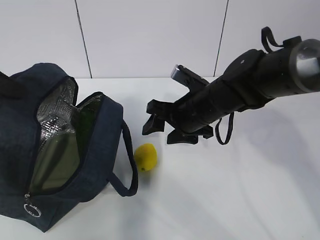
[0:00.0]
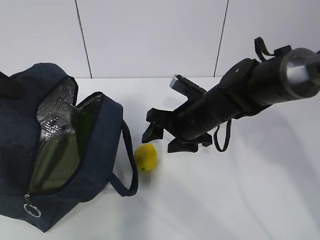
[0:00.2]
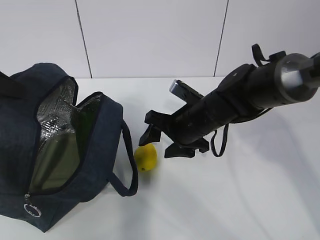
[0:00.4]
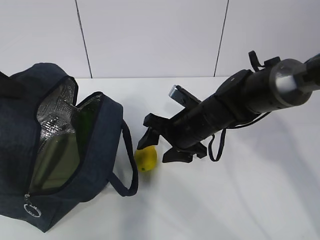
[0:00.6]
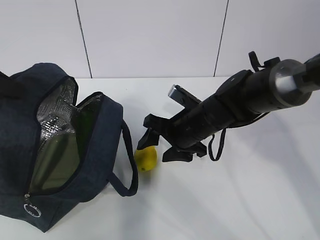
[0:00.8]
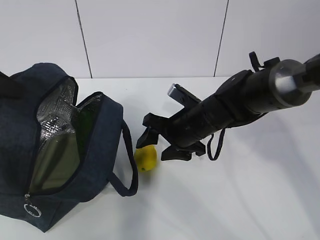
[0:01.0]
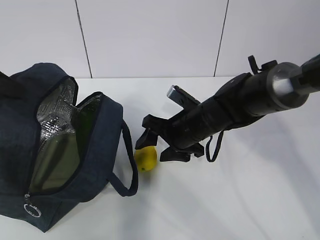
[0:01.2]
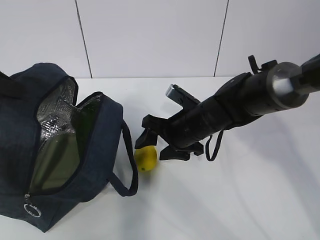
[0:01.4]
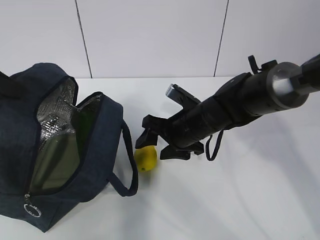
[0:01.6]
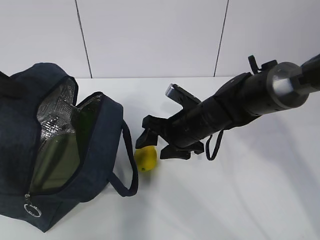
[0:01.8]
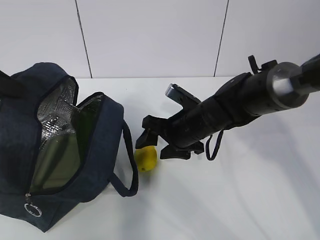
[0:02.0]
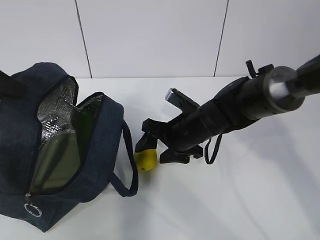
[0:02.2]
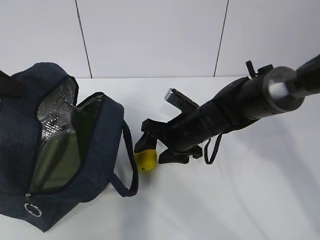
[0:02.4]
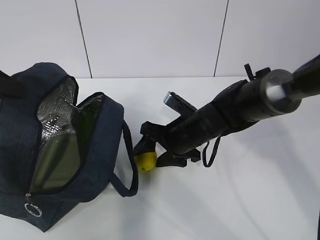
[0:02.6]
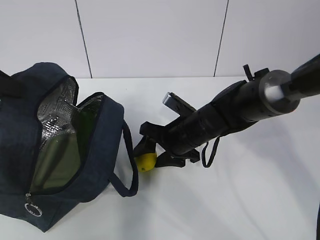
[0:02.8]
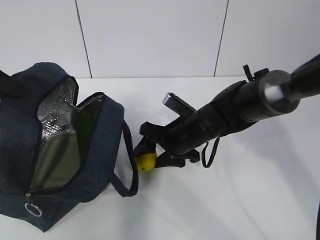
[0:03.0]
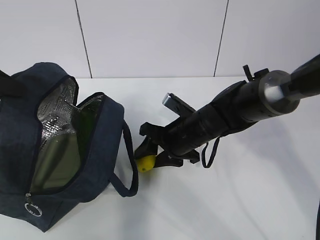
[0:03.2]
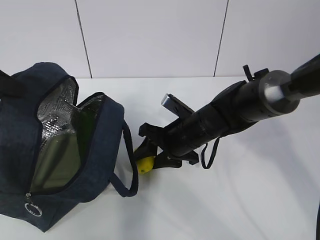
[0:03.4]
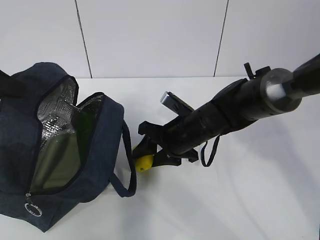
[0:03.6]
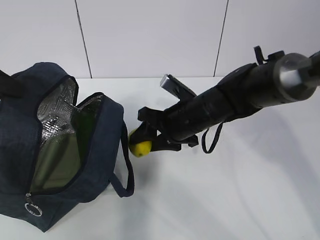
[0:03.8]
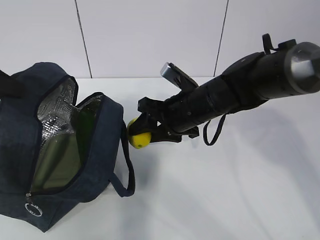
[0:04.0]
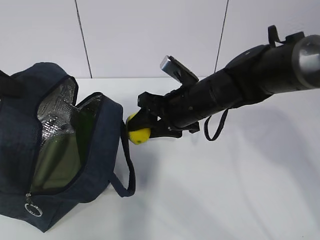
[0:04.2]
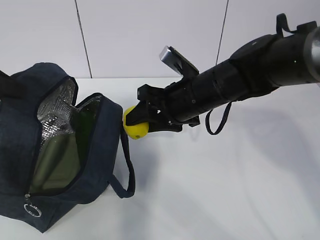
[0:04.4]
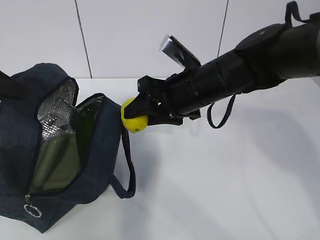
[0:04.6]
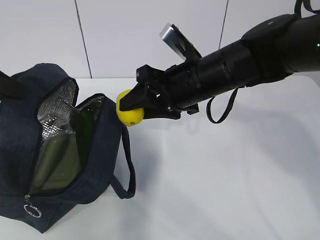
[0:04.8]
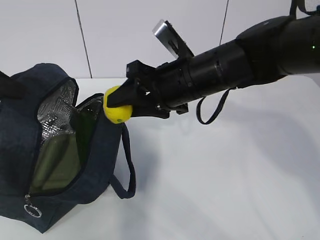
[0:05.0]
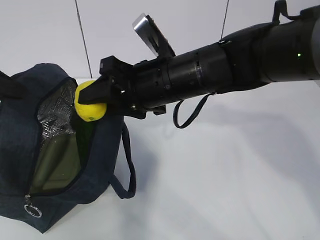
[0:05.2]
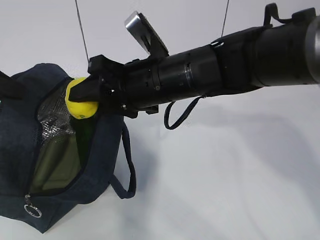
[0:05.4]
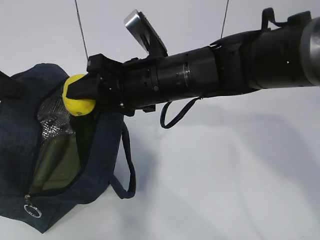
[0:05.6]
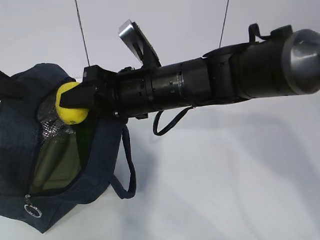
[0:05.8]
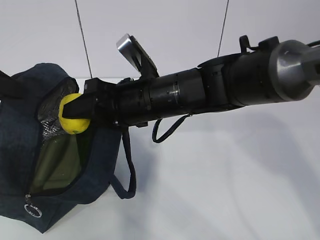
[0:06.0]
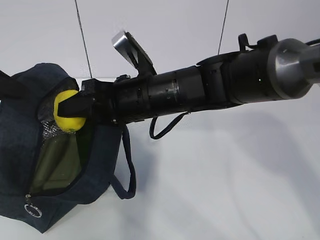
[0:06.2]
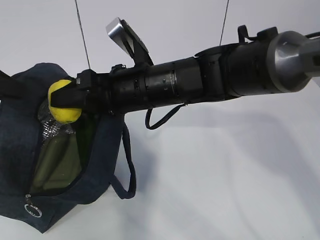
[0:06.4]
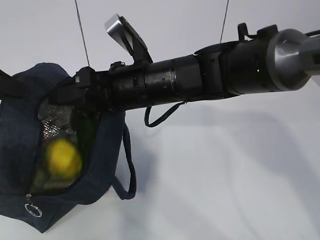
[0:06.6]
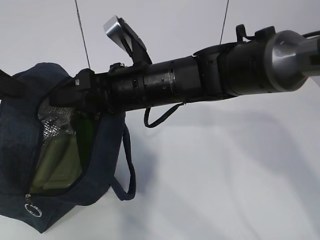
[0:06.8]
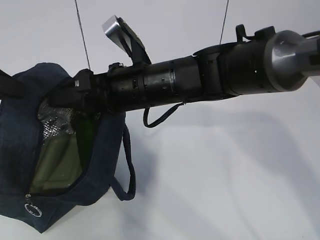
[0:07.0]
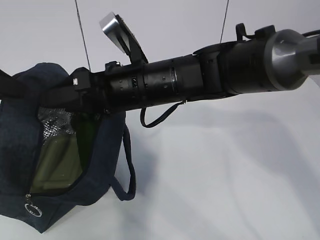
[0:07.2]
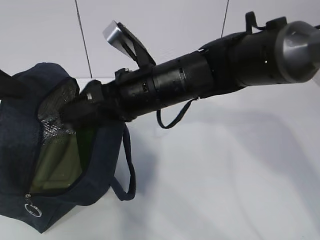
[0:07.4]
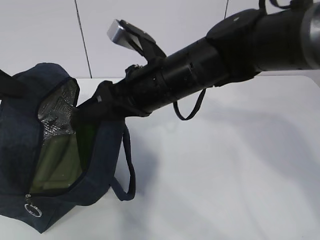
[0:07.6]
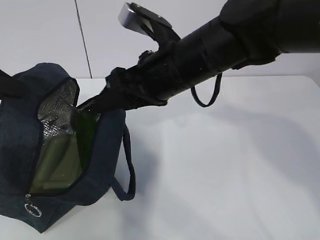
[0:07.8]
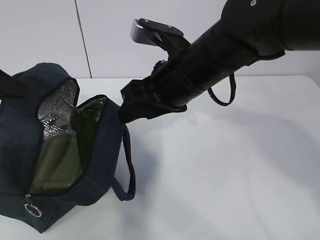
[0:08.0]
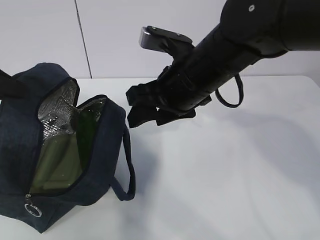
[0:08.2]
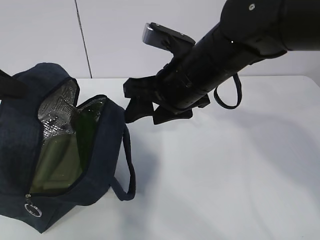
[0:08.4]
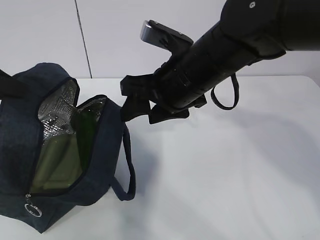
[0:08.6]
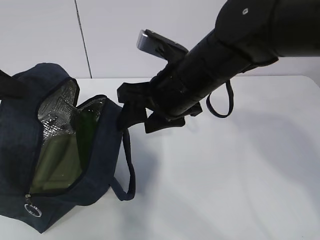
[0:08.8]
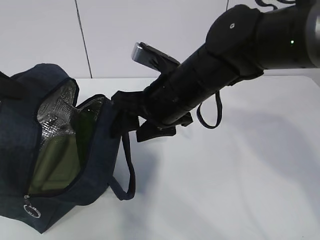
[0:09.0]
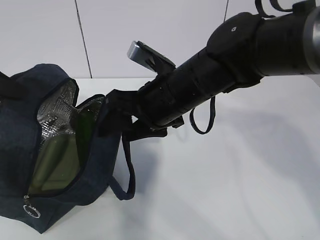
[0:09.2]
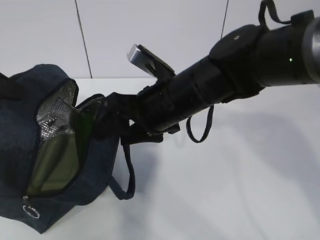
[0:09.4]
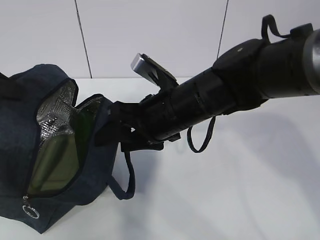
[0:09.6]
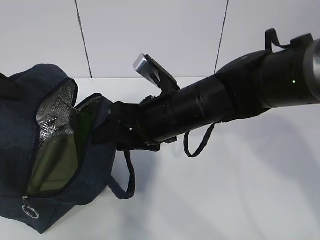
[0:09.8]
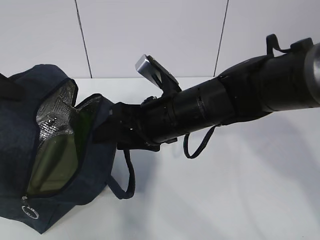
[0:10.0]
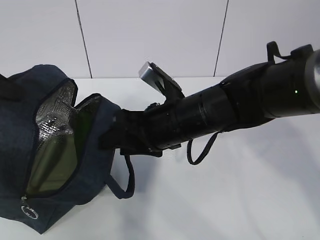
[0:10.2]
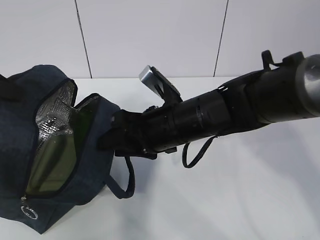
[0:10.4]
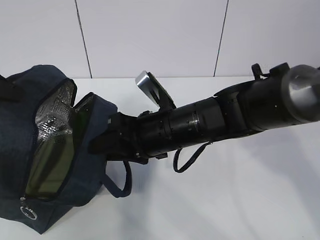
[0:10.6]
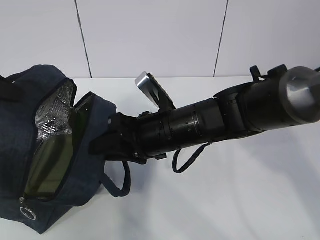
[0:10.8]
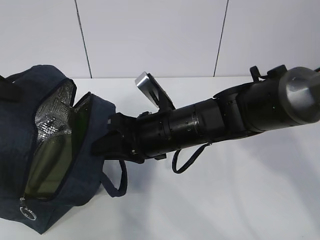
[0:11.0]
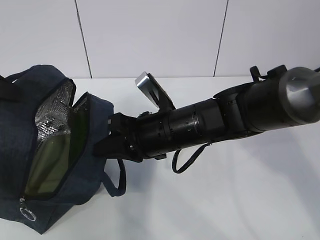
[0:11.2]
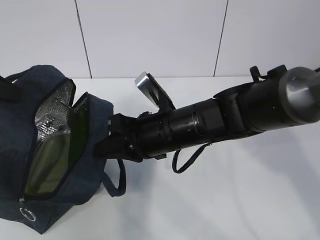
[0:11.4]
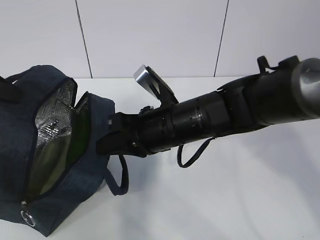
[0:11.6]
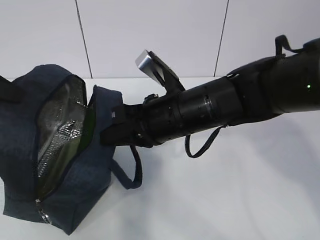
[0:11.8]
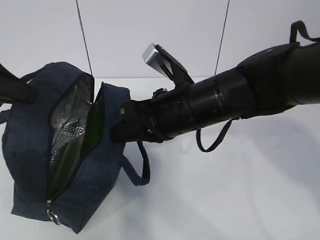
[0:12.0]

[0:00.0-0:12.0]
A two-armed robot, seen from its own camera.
Step, 0:01.2 to 0:04.8: Move the lunch bag to the right.
0:00.0 to 0:03.0: There are only small adjustments of the grippers.
0:03.0 to 0:04.4: The right gripper heads upward, covering about 10 cm.
0:04.4 to 0:06.0: The right gripper is displaced to the left by roughly 5 cm.
0:10.4 to 0:12.0: The right gripper closes its fingers.

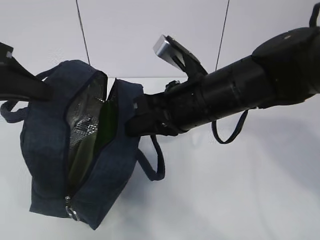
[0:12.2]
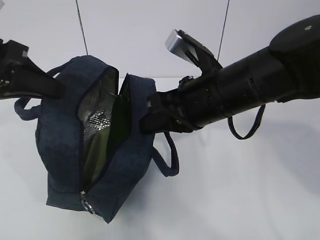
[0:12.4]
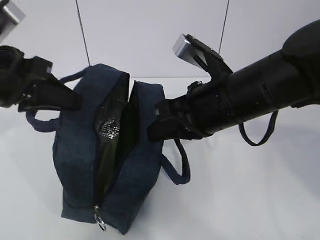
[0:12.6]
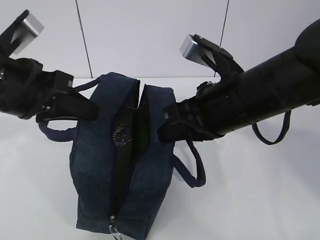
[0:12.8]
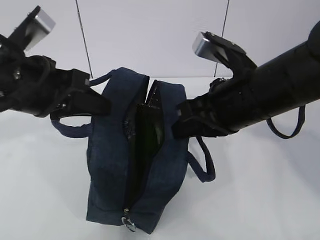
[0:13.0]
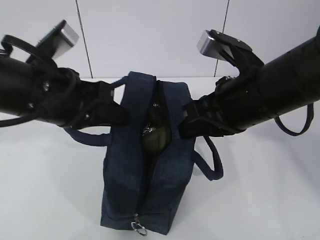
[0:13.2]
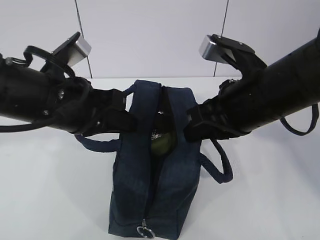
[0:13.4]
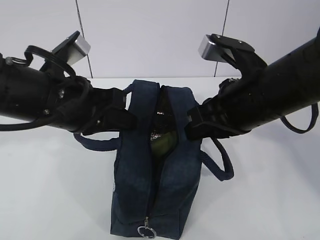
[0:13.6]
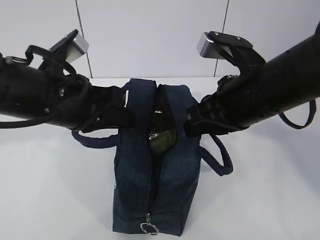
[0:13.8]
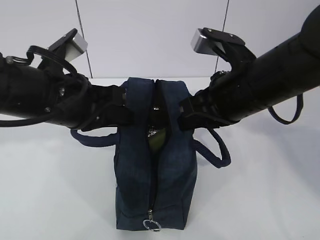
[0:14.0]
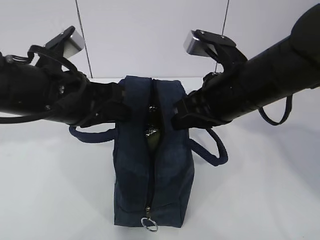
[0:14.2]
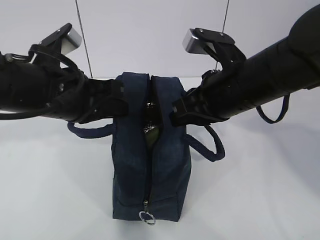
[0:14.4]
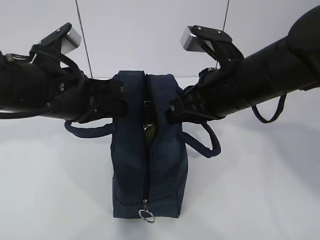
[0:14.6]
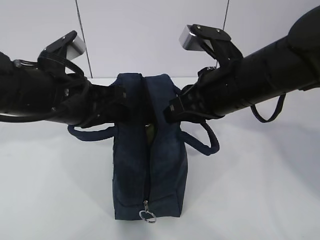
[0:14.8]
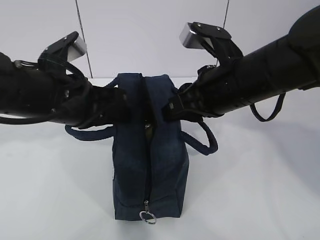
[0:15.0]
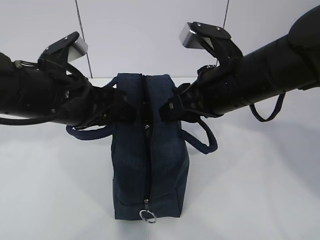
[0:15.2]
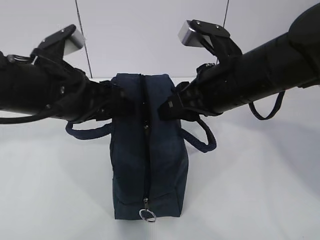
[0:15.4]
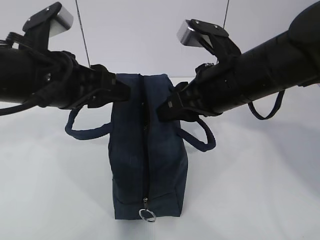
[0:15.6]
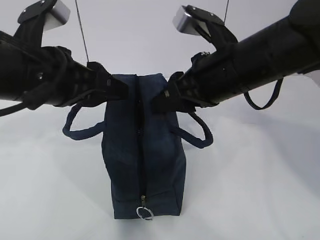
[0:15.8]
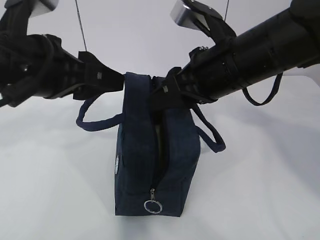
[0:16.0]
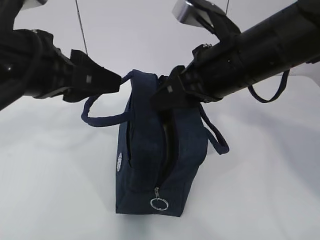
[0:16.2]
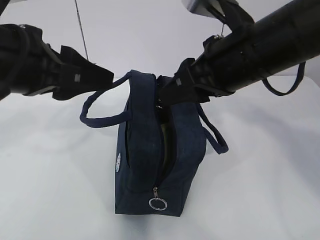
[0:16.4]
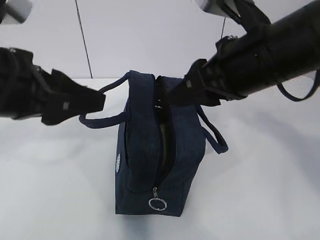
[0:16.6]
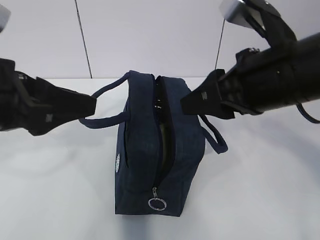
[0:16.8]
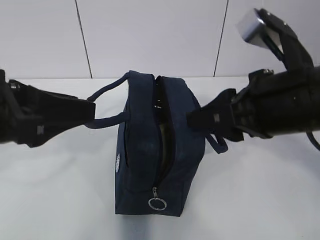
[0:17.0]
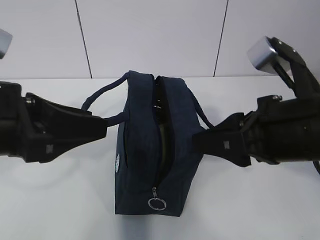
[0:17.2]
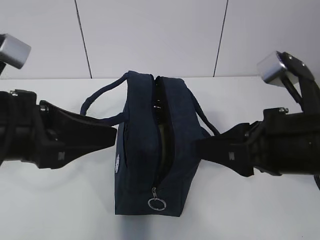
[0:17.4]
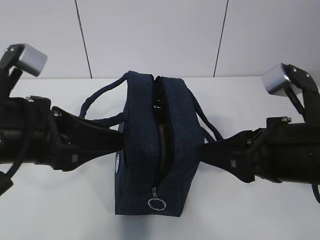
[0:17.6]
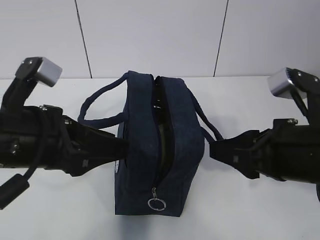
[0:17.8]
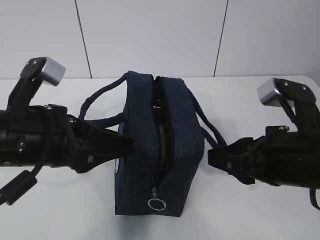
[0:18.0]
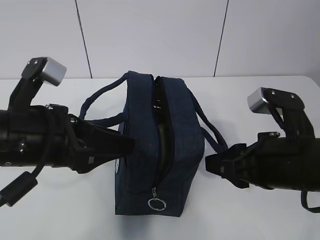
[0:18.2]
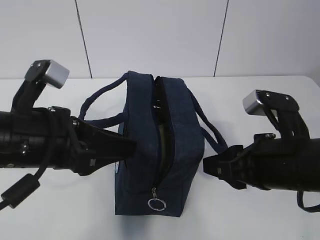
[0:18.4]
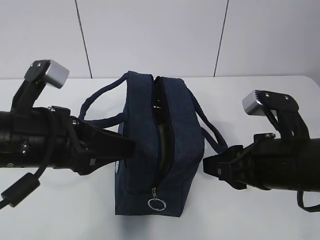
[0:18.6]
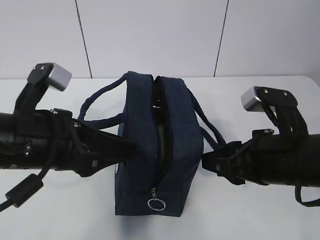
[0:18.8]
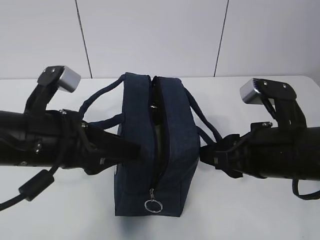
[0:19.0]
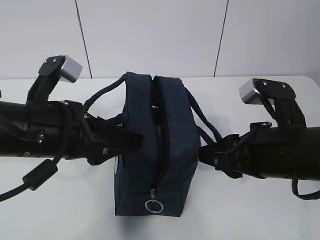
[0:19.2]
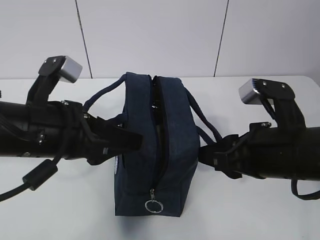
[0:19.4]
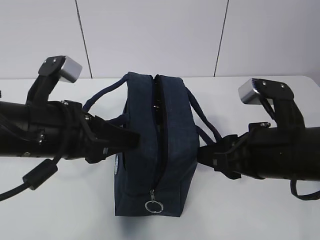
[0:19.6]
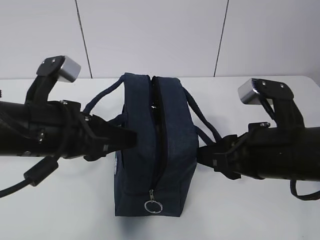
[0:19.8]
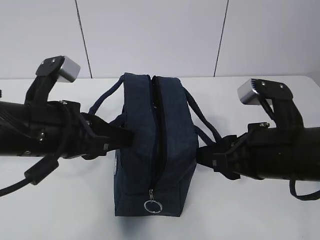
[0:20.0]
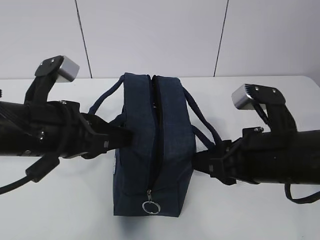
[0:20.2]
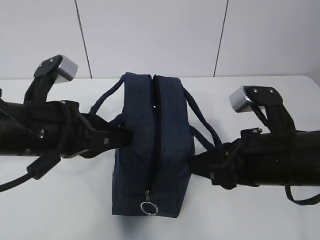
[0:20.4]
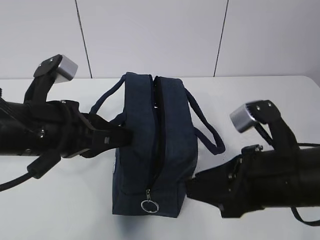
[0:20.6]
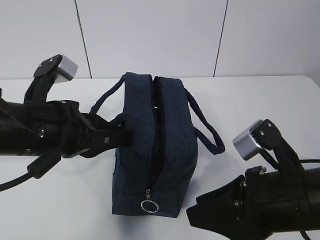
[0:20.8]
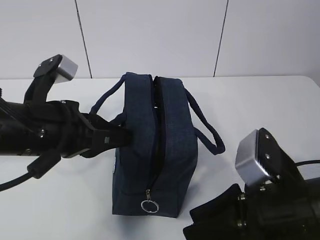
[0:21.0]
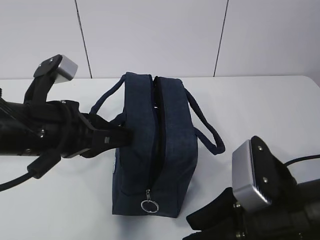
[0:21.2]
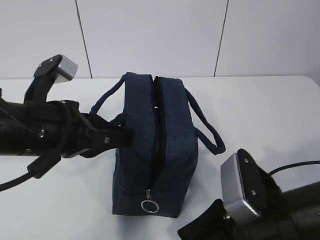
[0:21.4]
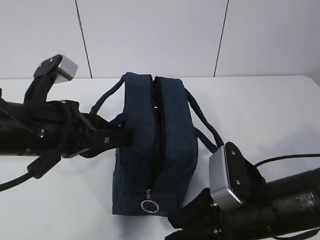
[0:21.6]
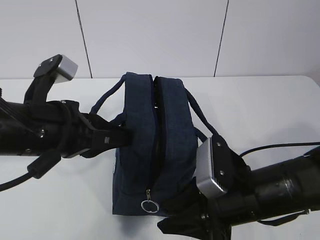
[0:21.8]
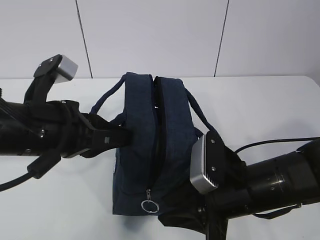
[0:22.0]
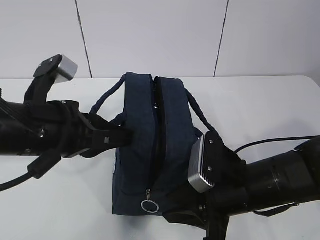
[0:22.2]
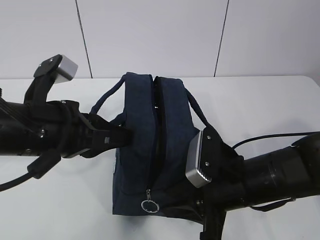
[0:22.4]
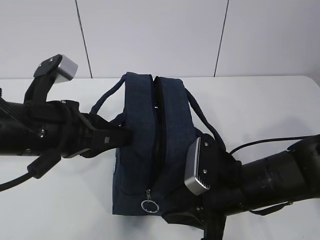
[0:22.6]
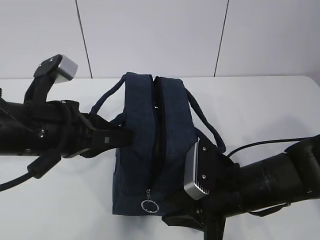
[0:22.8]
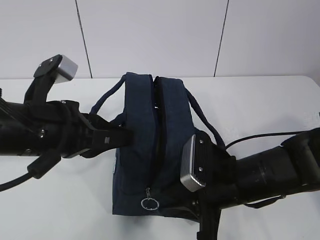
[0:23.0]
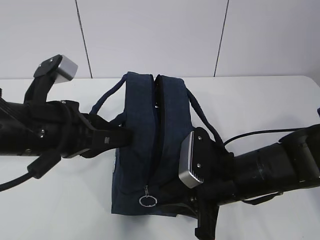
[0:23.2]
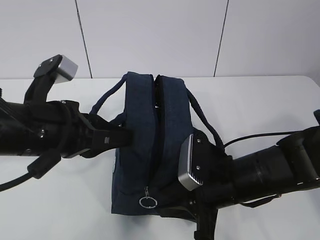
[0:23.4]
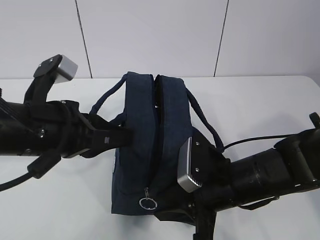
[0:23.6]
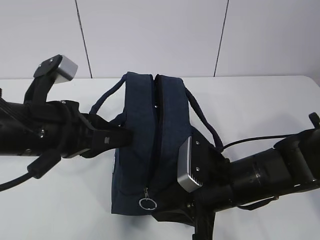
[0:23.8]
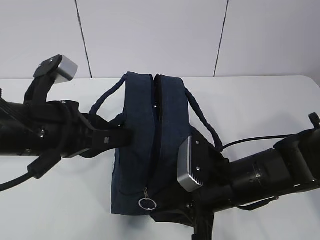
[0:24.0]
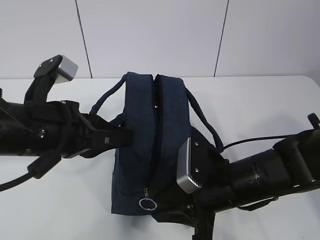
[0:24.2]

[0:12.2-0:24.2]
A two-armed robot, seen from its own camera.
0:12.2 to 0:13.8: The right gripper moves to the right, some 5 cm. Meanwhile the left gripper travels to the right and downward by roughly 15 cm.
0:13.8 to 0:15.2: The left gripper opens, while the right gripper opens up.
0:15.2 to 0:16.6: The left gripper heads upward and backward, covering roughly 10 cm. The right gripper moves upward, approximately 5 cm.
0:16.6 to 0:18.2: The right gripper travels downward and backward by approximately 10 cm. Meanwhile the left gripper moves downward, roughly 5 cm.
0:18.2 to 0:19.8: There are only small adjustments of the grippers.
0:19.8 to 0:21.2: The right gripper heads backward, covering some 5 cm.
0:21.2 to 0:22.6: The right gripper goes roughly 10 cm forward and downward.
0:22.6 to 0:24.2: The grippers make only small movements.
